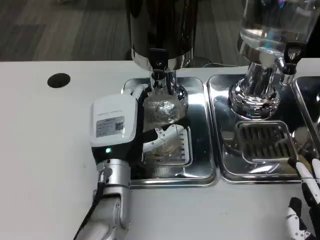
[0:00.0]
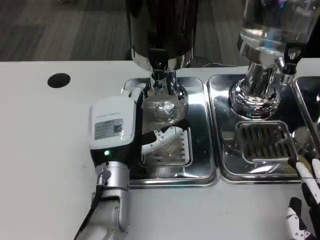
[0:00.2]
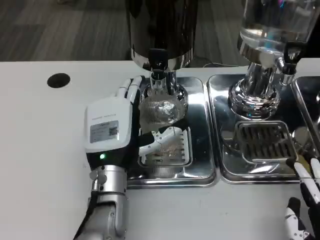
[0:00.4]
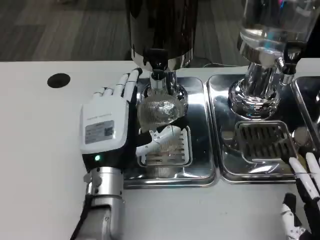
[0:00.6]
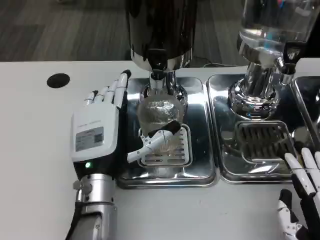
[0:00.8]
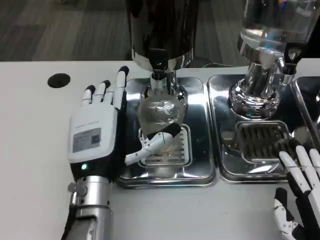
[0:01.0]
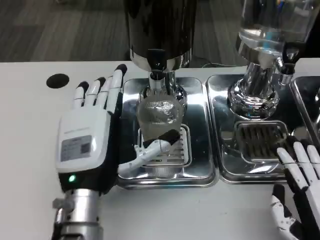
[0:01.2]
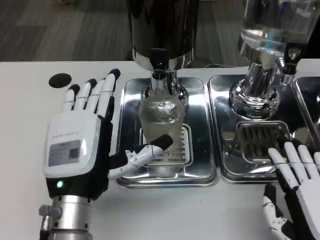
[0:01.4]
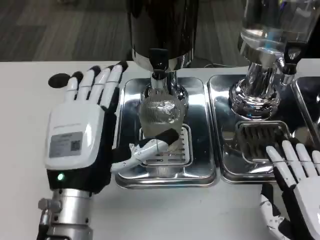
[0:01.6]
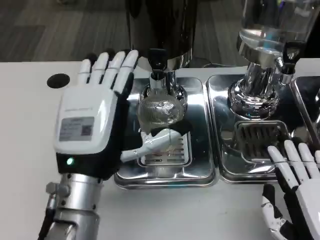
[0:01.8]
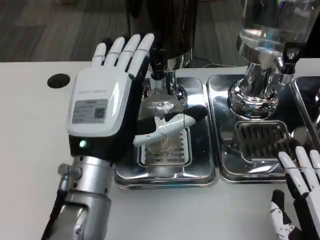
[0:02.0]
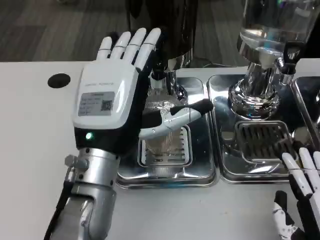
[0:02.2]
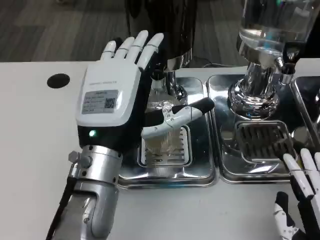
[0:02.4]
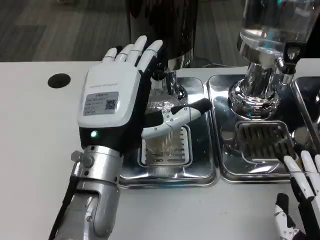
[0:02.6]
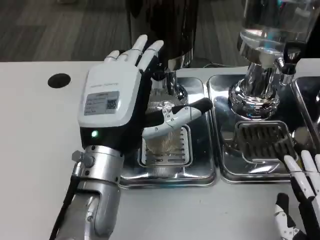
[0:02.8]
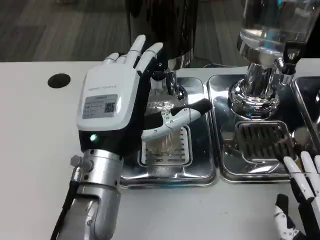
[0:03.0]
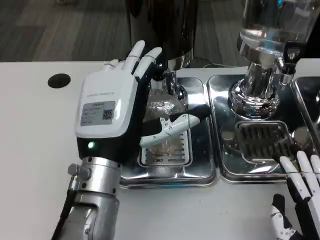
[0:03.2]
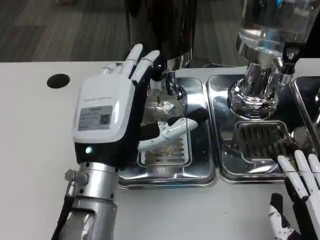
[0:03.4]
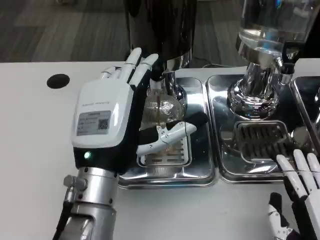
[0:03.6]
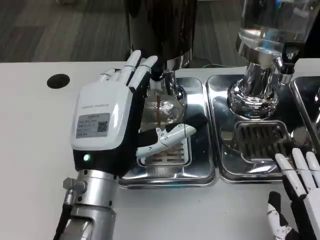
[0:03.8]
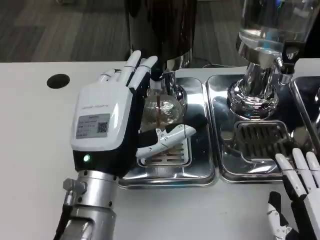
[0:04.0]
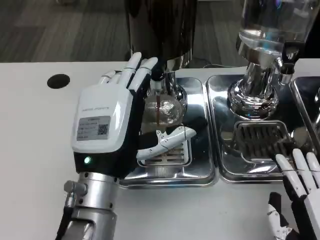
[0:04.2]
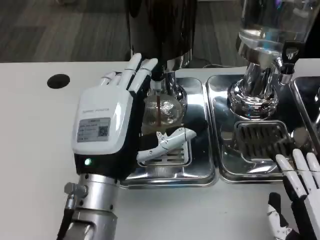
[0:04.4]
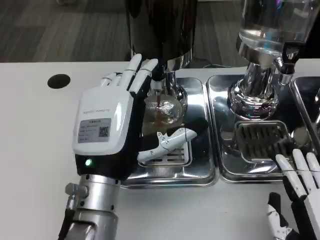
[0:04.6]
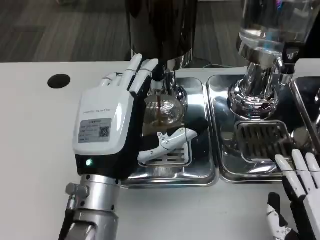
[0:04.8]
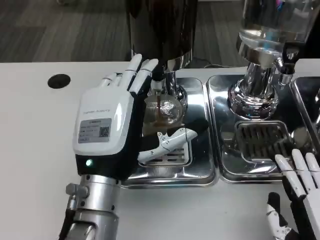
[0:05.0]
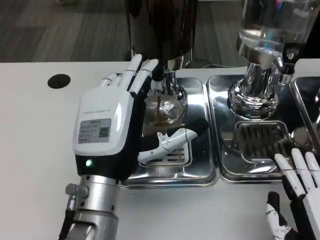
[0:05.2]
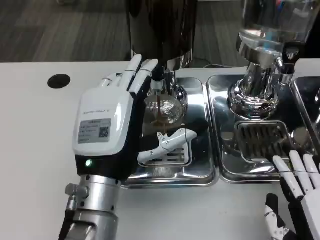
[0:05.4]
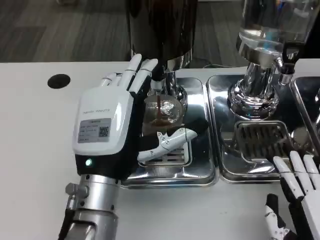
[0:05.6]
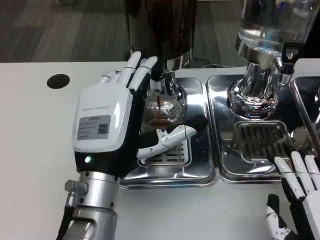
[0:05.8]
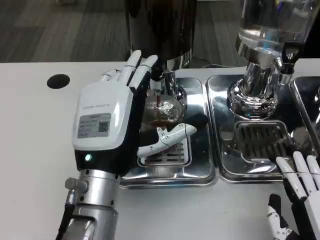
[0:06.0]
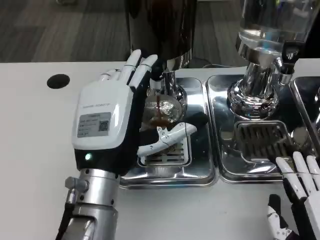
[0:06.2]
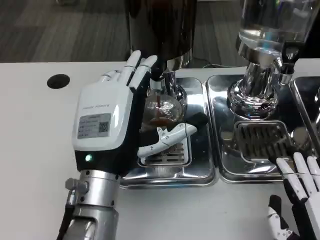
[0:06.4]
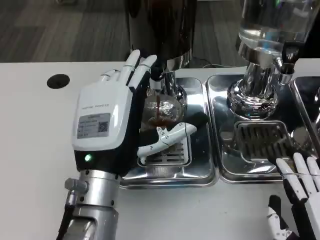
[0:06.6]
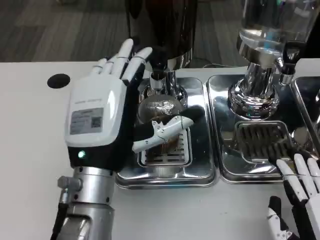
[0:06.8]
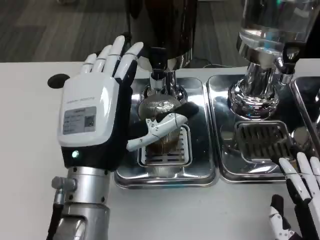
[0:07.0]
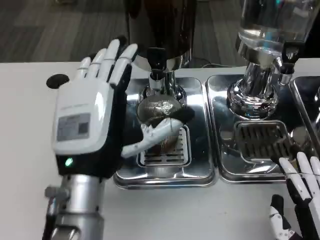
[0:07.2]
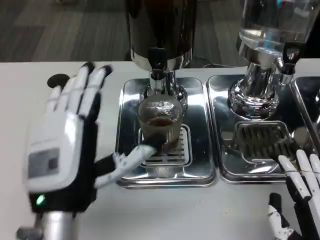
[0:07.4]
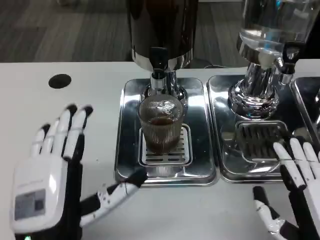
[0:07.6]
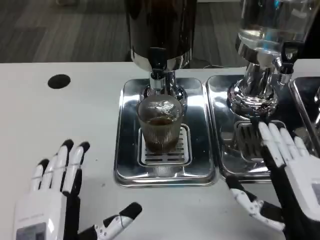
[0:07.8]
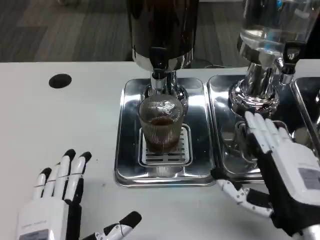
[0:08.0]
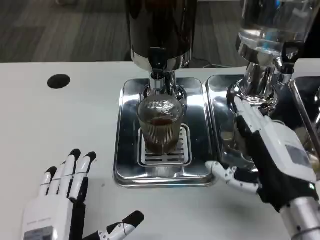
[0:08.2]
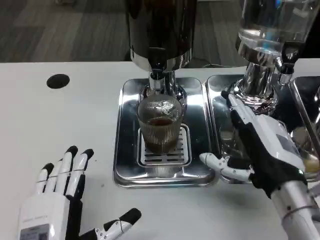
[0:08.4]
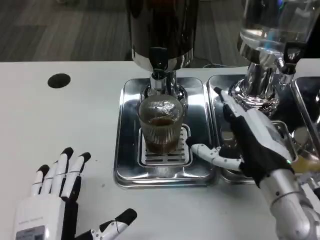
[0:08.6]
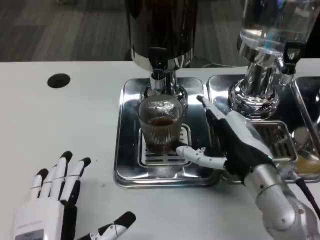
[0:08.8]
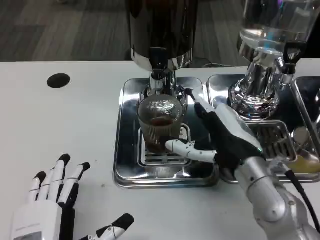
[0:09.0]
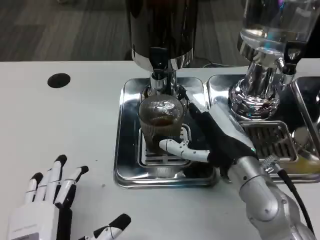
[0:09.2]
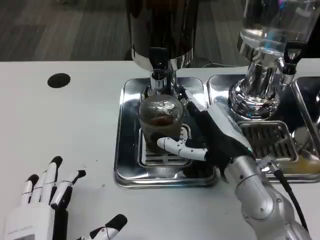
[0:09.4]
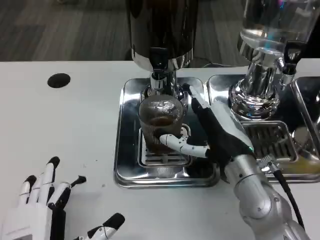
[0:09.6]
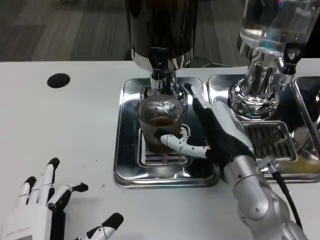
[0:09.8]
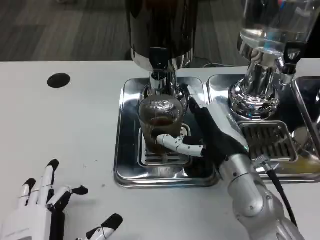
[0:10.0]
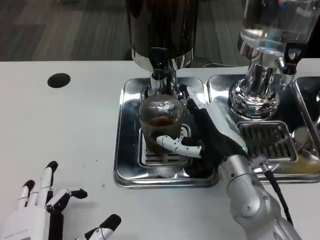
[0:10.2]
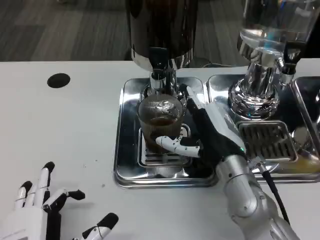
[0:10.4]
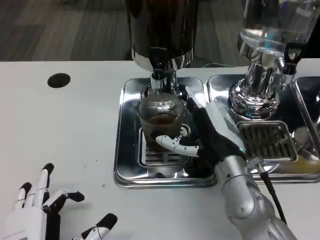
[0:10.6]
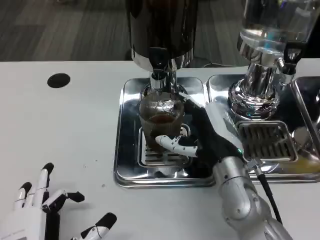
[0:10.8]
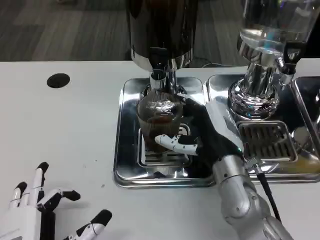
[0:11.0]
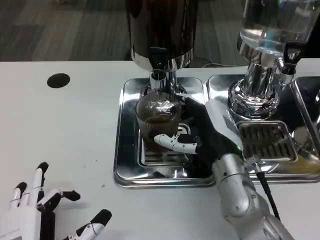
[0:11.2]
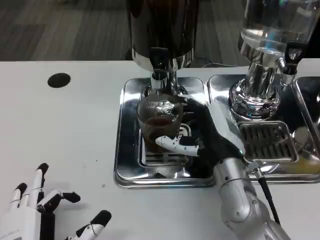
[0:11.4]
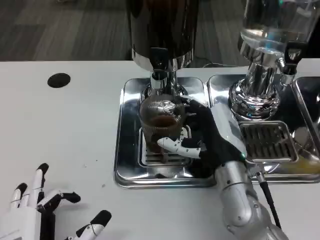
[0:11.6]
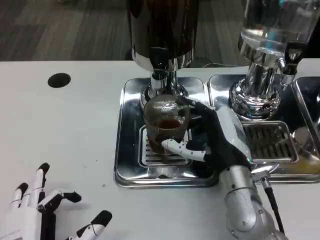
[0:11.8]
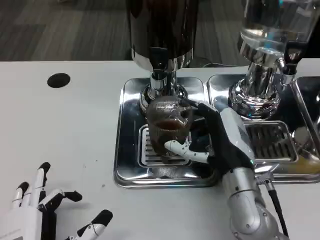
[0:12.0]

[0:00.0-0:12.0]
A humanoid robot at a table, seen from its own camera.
Task of the whole recording: Grasp the cup under the faucet to collect the drink, then remove the cup.
0:00.0 to 0:01.6: The left hand shifts approximately 10 cm backward and upward.
0:04.4 to 0:06.0: Both hands stay put.
0:06.0 to 0:07.6: The left hand is displaced backward by roughly 10 cm.
0:07.6 to 0:09.0: The left hand ends up about 5 cm from where it was, while the right hand heads forward and to the left, covering approximately 15 cm.
0:09.0 to 0:12.0: The hands stay close to where they were, moving slightly.

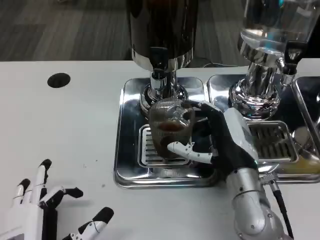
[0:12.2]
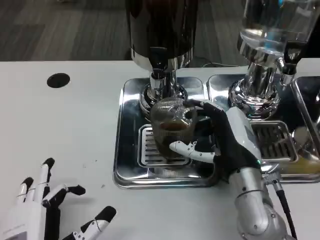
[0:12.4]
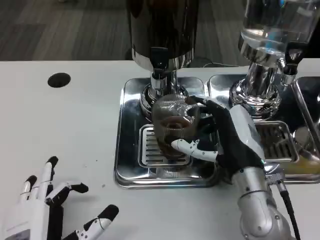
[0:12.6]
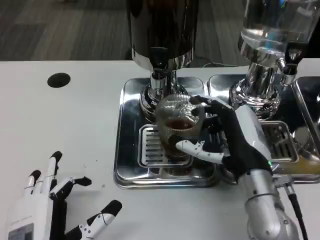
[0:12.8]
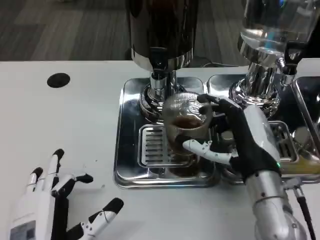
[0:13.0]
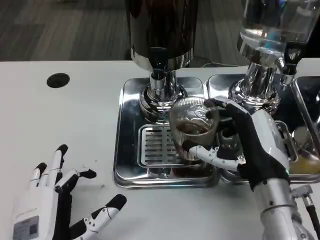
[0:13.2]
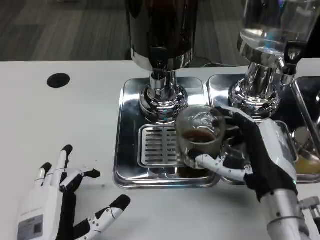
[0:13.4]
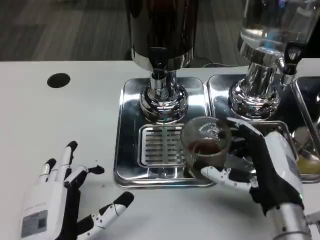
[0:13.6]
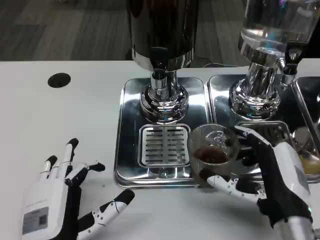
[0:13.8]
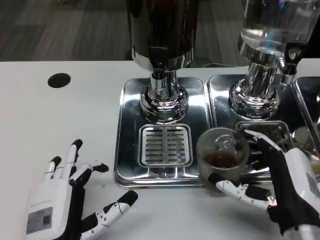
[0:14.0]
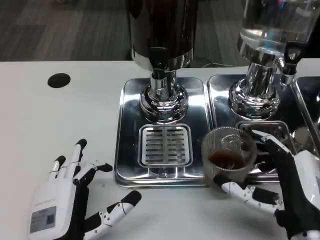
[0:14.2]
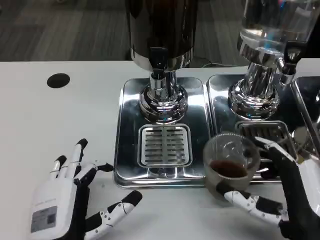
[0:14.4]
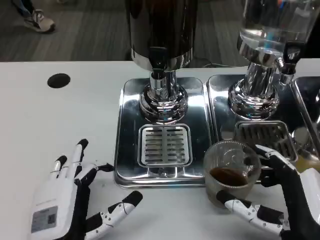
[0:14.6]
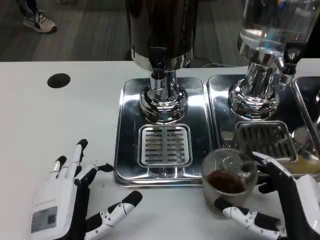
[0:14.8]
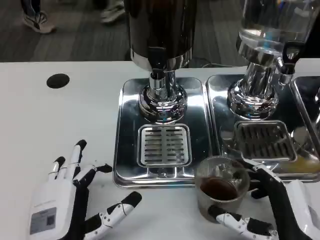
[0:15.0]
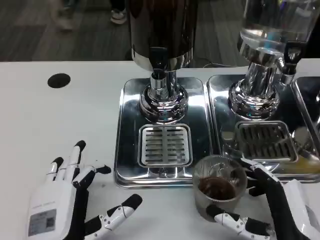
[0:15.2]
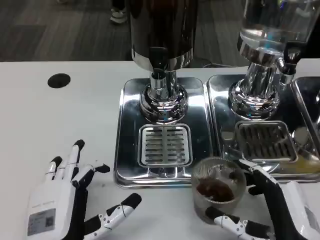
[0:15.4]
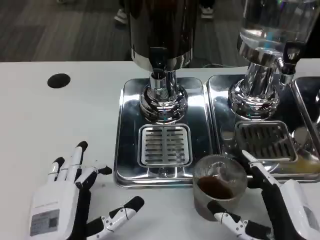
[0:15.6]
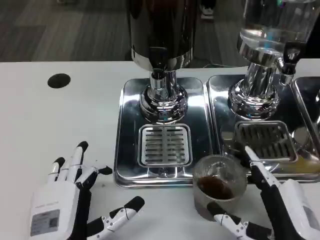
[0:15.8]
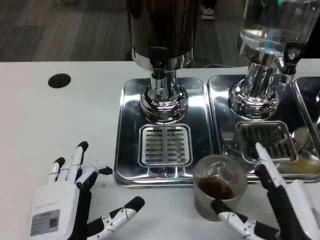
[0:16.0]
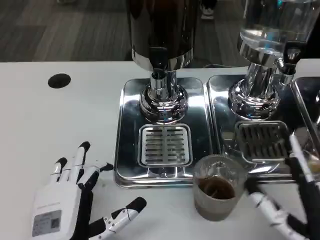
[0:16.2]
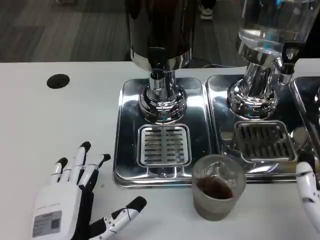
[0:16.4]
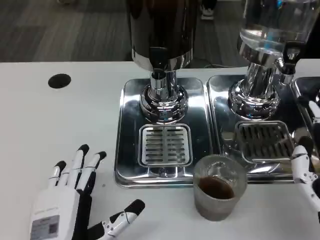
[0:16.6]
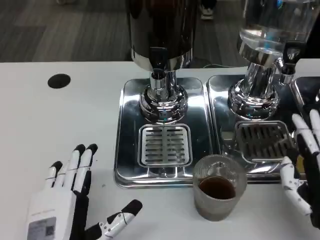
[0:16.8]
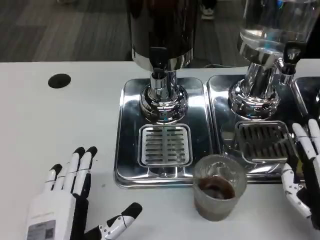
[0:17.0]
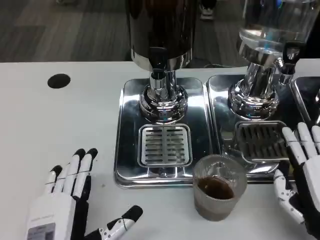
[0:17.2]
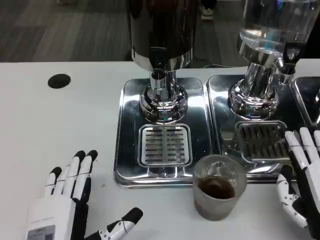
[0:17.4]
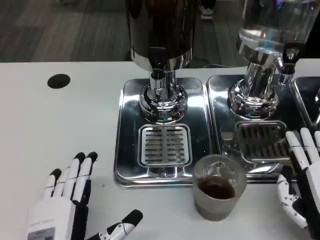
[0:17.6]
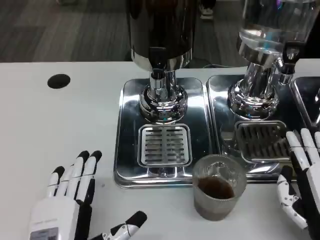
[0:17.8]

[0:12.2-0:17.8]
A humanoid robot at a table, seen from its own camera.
Task of the whole recording: Grasp the cup under the faucet to collect the drink, then remove the cup.
0:12.2 to 0:13.6: The right hand travels backward by about 5 cm.
0:13.6 to 0:15.0: The right hand travels backward by approximately 5 cm.
0:15.0 to 0:16.4: The hands make only small movements.
0:16.4 to 0:17.8: The right hand moves some 5 cm.

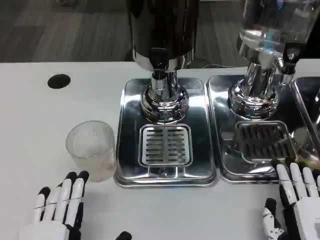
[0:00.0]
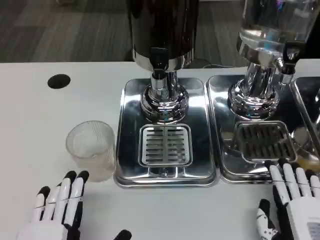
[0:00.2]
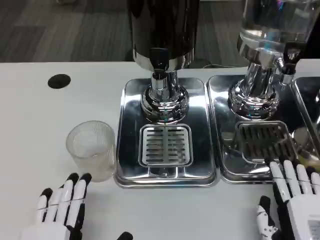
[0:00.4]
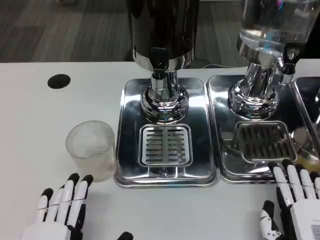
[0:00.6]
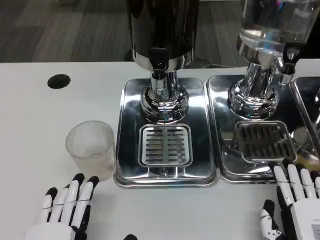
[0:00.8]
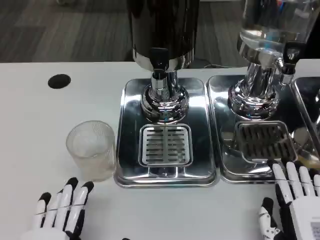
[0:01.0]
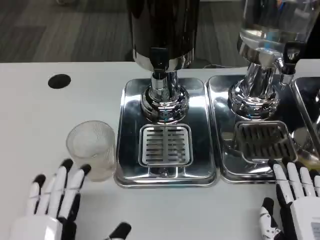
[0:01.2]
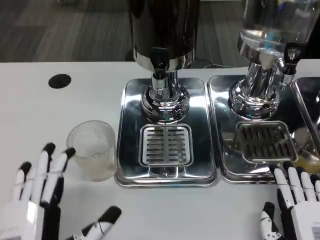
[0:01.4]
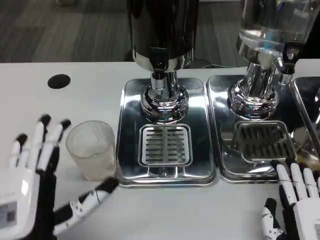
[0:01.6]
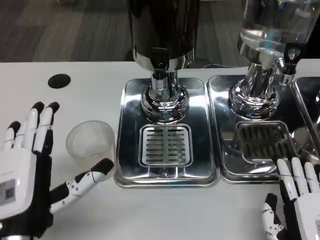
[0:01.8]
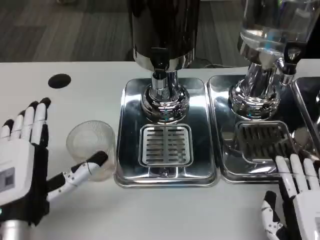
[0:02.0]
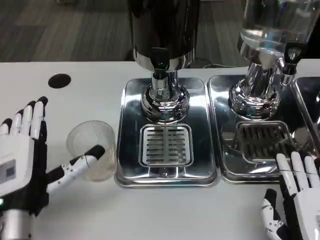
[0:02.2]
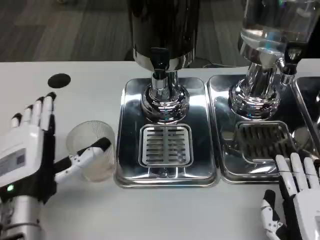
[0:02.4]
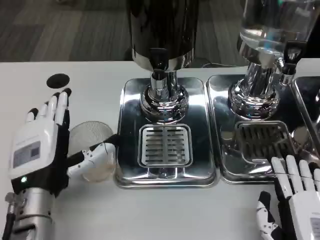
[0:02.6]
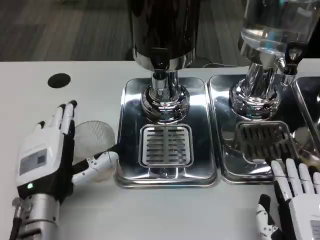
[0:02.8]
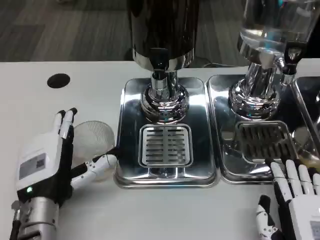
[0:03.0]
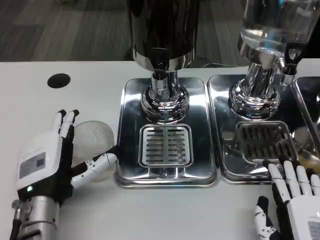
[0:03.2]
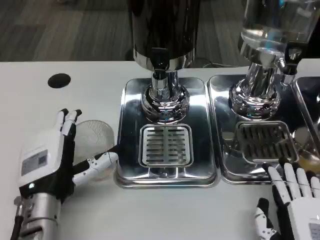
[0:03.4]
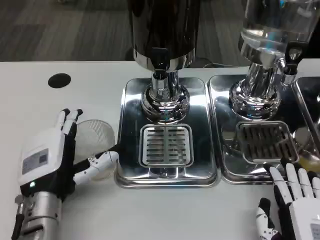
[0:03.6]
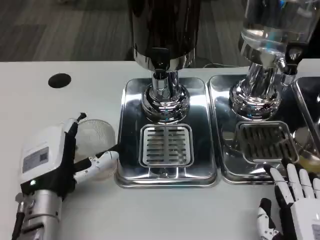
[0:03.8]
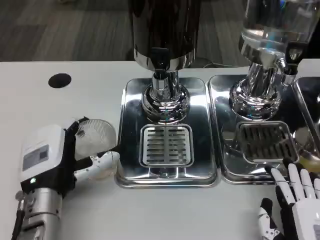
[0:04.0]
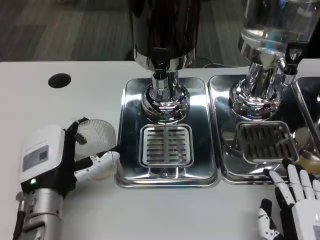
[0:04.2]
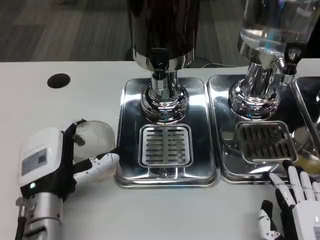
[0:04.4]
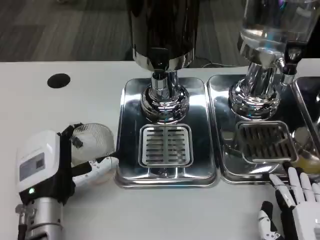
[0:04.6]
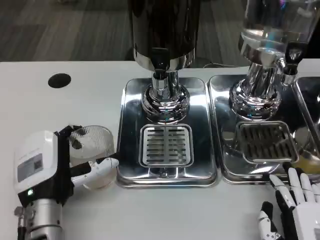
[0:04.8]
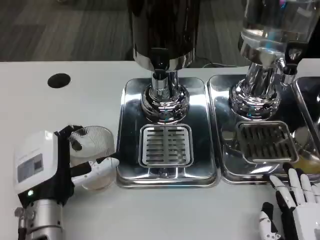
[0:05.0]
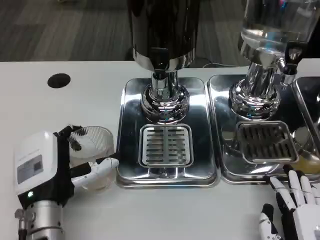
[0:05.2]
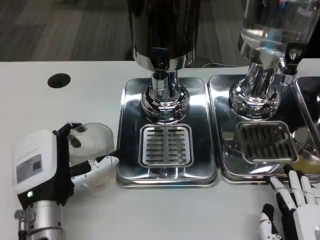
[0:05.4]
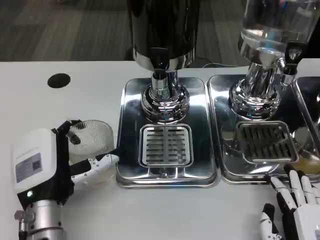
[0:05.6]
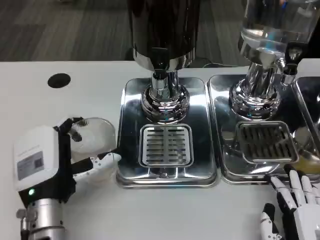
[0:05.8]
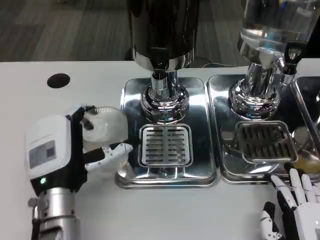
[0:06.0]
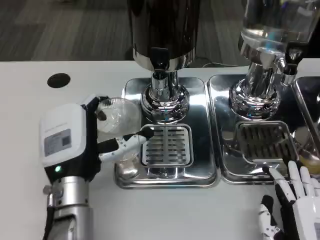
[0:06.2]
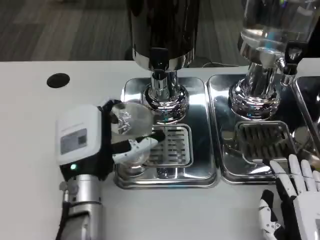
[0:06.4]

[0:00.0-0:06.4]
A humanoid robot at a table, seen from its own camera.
Task of the whole recording: Grasp the cup under the faucet to collect the drink, then remove the cup.
0:00.0 to 0:01.6: The left hand moves forward and upward, approximately 5 cm.
0:01.6 to 0:03.2: The left hand shifts approximately 10 cm forward.
0:03.2 to 0:04.8: The hands stay close to where they were, moving slightly.
0:04.8 to 0:06.4: The left hand heads to the right, covering roughly 5 cm.
